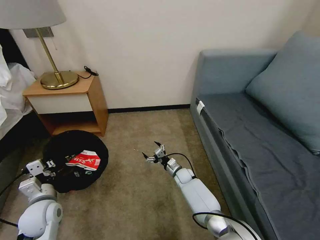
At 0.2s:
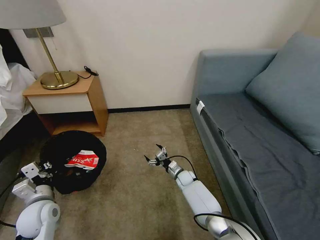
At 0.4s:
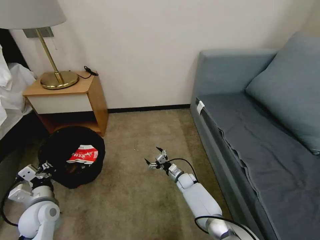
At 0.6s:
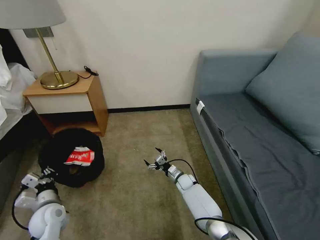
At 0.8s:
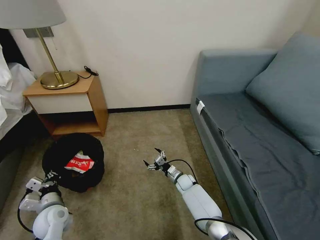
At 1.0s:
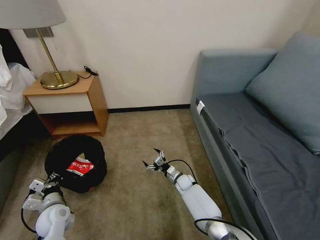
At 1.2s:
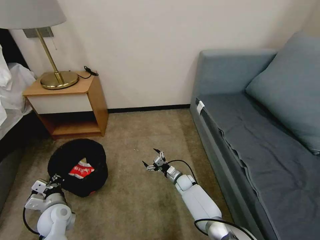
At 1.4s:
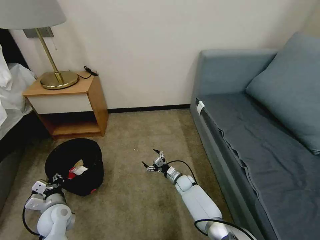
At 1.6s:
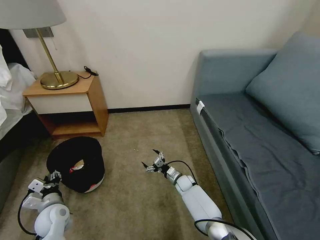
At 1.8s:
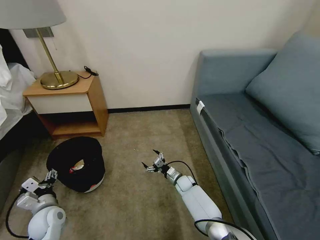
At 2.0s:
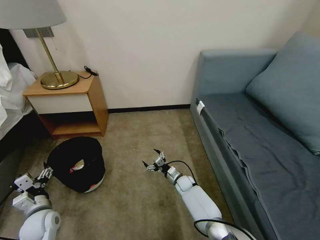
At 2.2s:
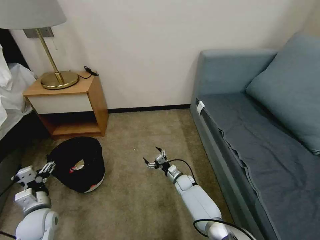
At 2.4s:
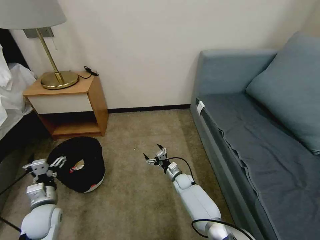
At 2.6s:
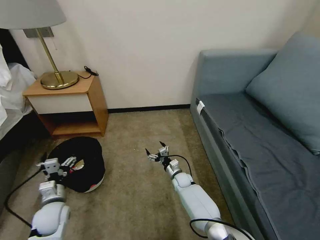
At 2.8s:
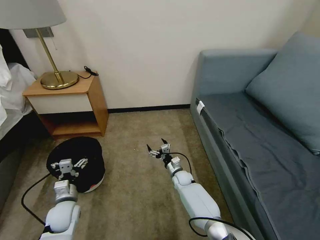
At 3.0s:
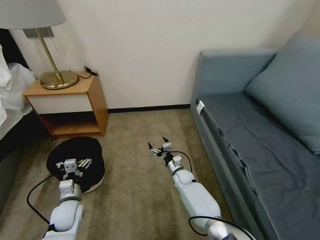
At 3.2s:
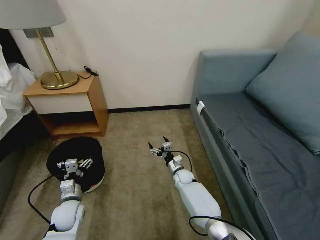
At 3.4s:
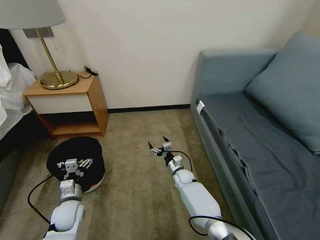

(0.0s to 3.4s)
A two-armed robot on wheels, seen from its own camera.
Task of the whole recording: Pick up the trash bin, then pick up the garbage on the floor and place it into the trash bin.
0.0s - 1.6s: The left gripper is displaced downward by some 10 cm, and opens its fingers.
1.6s - 3.4s: The left gripper changes place by about 5 cm, and opens its fingers.

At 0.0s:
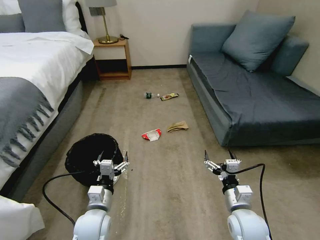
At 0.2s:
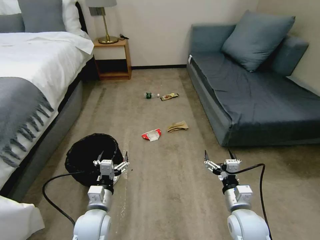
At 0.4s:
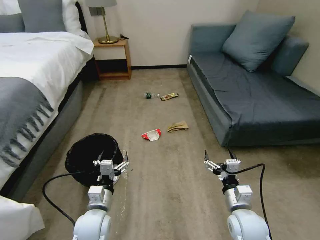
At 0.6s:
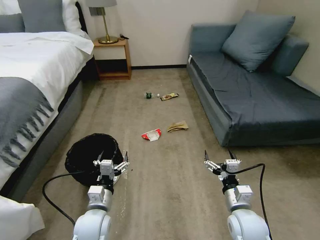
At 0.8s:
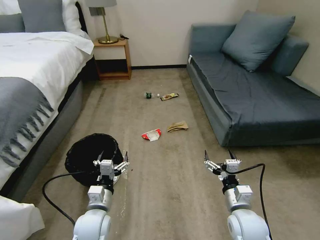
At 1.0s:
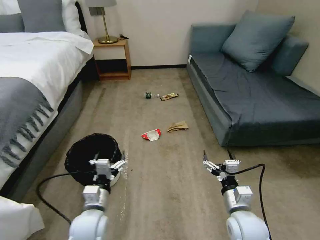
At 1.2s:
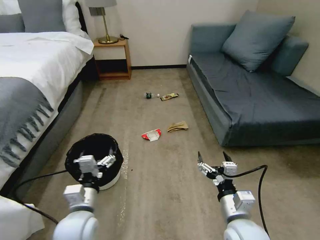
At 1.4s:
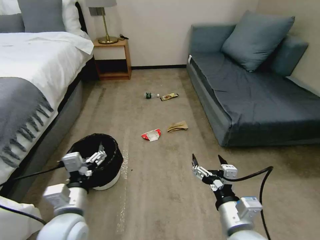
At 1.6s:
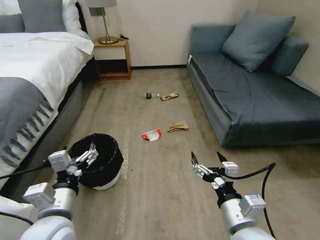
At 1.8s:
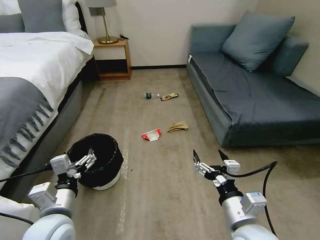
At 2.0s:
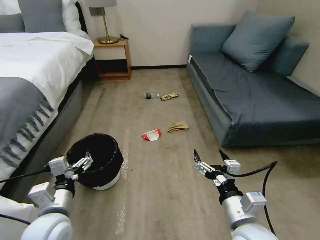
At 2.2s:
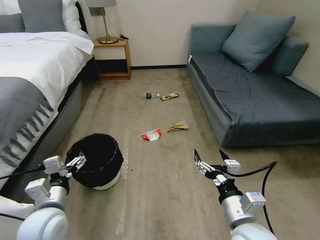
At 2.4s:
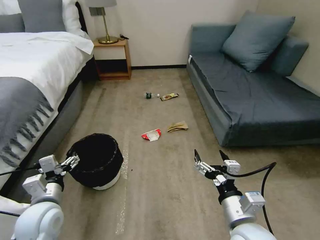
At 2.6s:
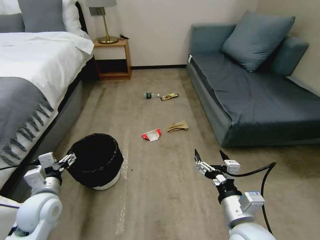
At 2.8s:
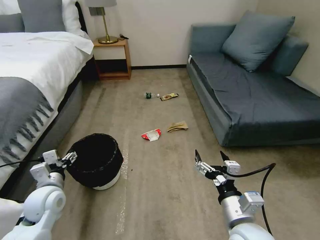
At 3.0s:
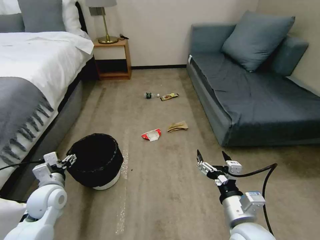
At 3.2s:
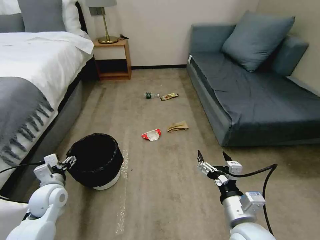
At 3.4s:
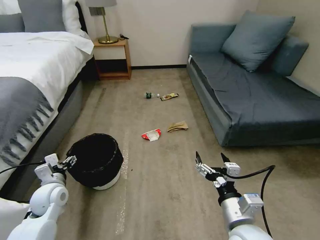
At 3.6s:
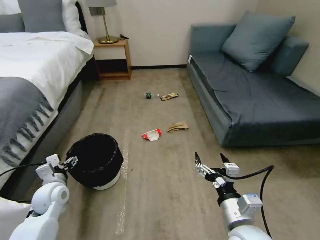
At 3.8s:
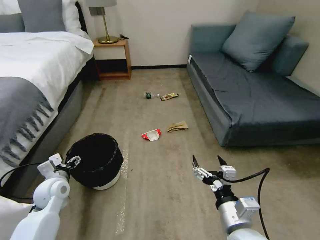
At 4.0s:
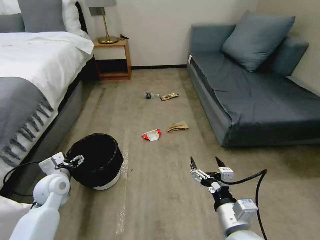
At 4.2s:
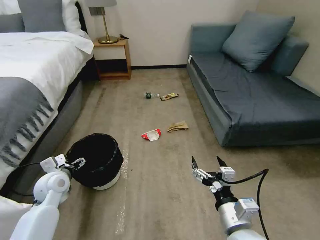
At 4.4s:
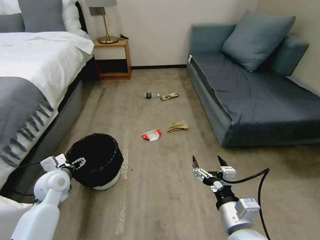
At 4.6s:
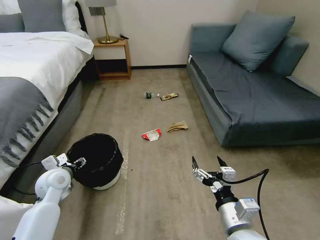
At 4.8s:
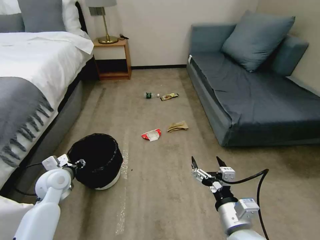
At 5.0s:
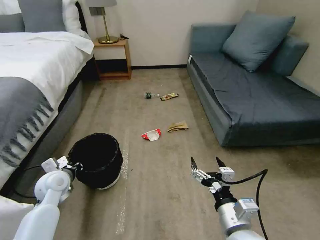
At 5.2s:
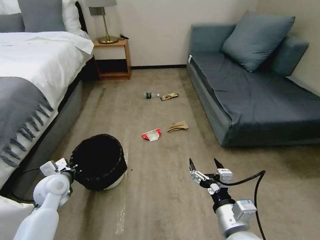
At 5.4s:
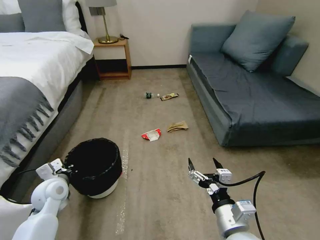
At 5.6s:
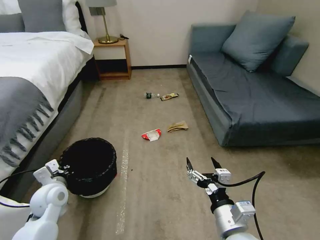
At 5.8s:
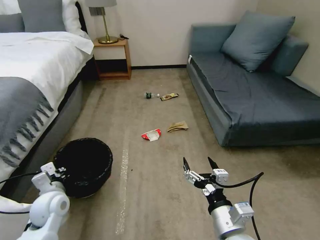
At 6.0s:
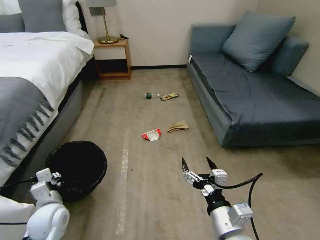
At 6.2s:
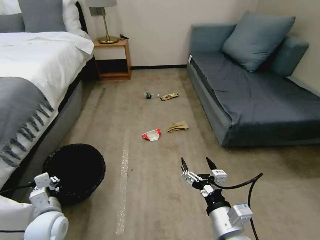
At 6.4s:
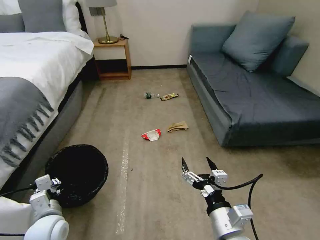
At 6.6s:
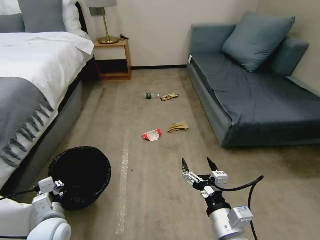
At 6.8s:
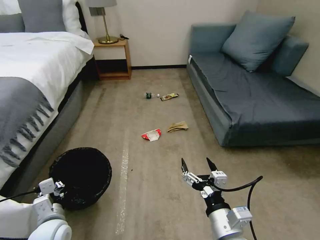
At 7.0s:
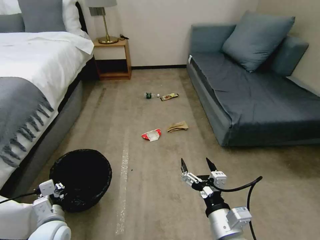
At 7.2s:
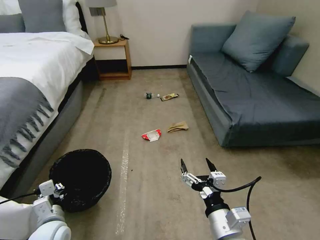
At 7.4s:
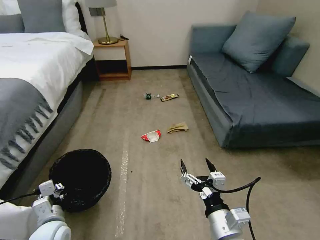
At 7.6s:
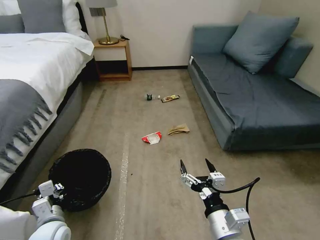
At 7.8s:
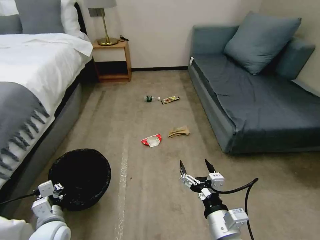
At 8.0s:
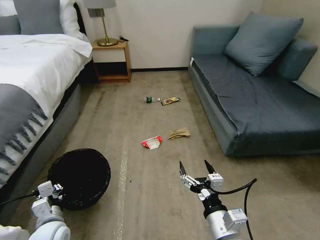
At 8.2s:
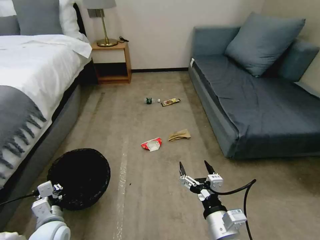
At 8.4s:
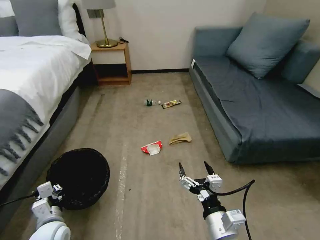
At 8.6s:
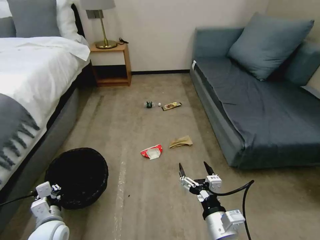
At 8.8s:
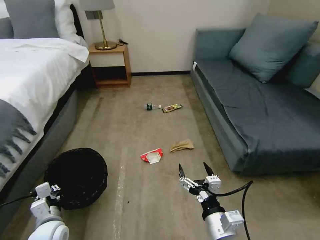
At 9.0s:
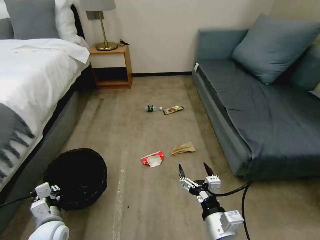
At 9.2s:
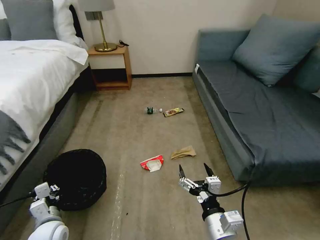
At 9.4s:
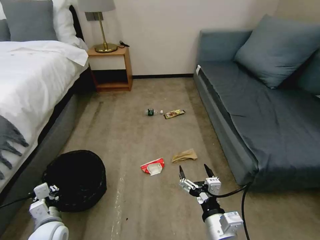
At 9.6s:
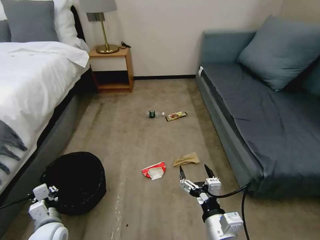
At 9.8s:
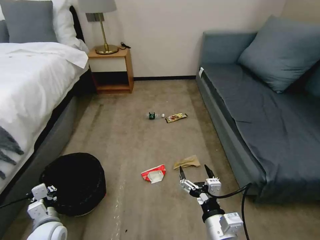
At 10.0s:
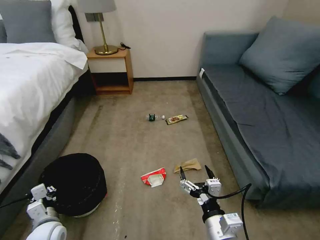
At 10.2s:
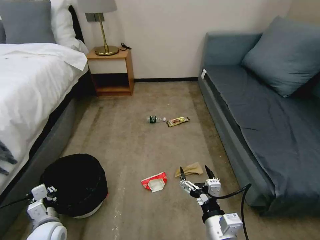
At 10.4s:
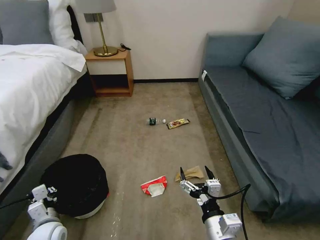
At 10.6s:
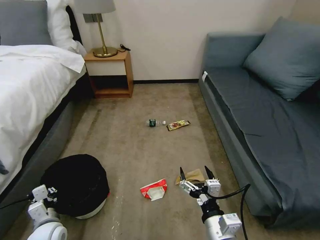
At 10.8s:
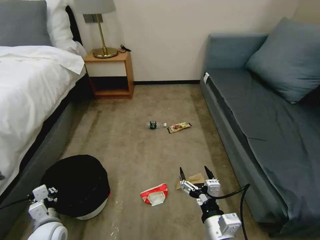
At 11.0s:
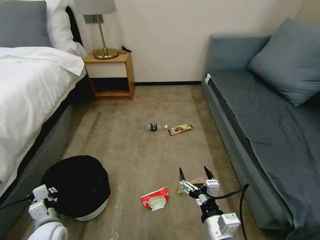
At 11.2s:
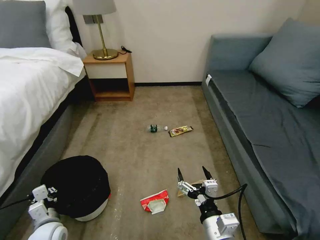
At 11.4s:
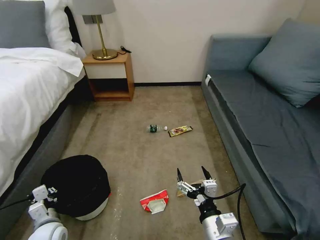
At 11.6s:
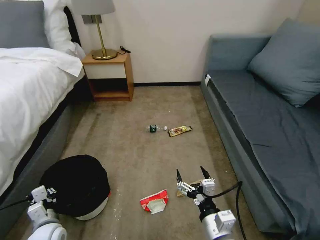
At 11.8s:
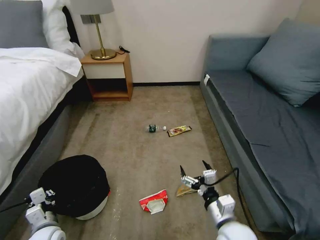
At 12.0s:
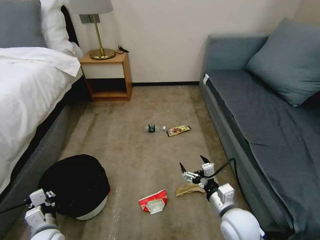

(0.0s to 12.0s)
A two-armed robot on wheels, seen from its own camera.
Task of the whole recording: Pick up the trash bin, then pick up the garbage on the floor and place it into the trash bin.
1.6s - 3.0s: The left gripper moves to the left, forward and downward, some 20 cm.
4.4s - 6.0s: The left gripper goes about 10 cm backward, and closes.
6.0s - 7.6s: The left gripper moves about 5 cm.
10.4s - 12.0s: The right gripper moves forward and to the right, roughly 10 cm.

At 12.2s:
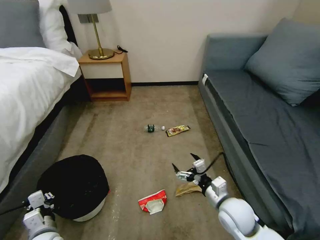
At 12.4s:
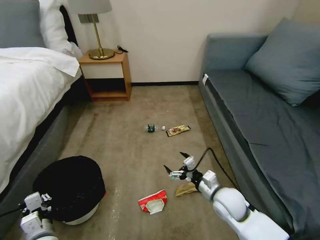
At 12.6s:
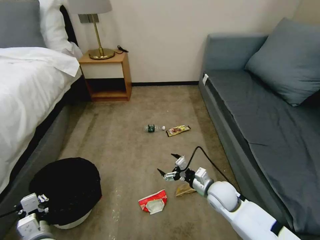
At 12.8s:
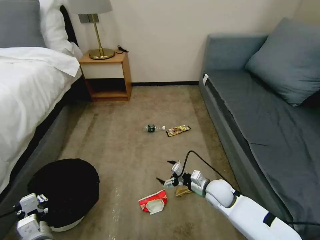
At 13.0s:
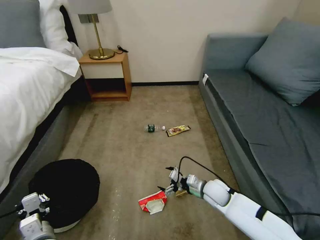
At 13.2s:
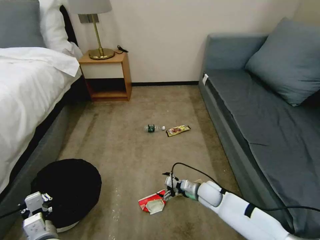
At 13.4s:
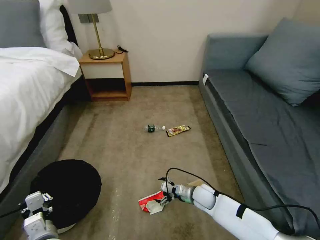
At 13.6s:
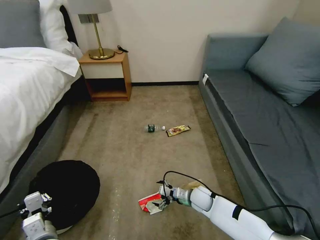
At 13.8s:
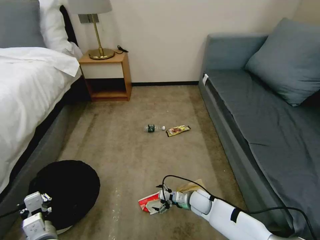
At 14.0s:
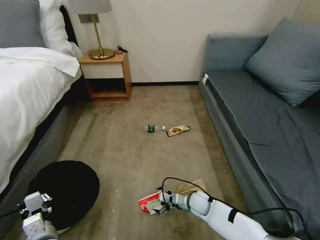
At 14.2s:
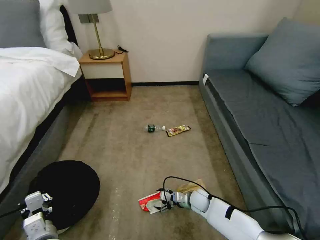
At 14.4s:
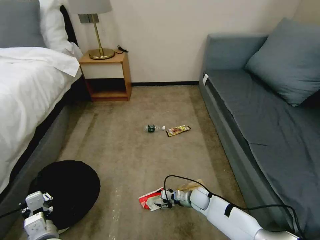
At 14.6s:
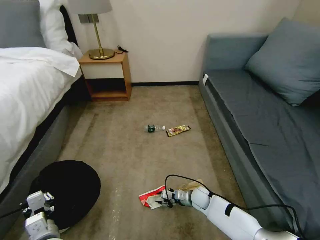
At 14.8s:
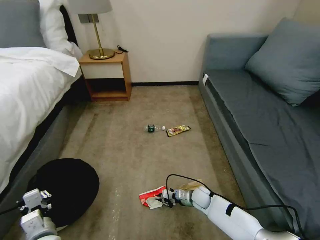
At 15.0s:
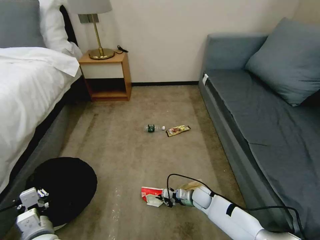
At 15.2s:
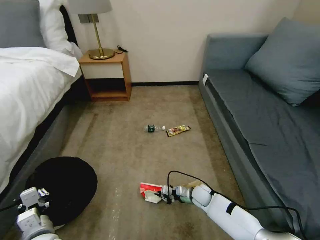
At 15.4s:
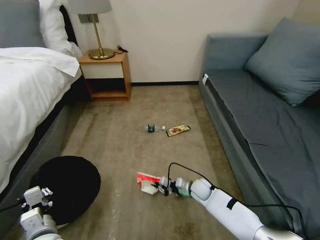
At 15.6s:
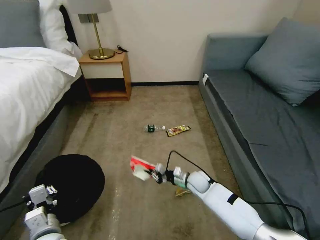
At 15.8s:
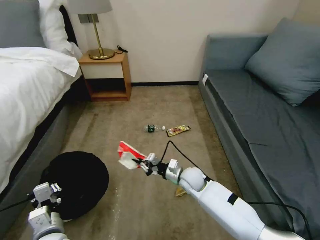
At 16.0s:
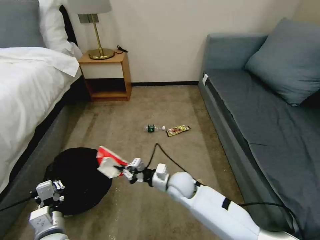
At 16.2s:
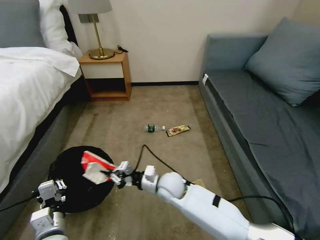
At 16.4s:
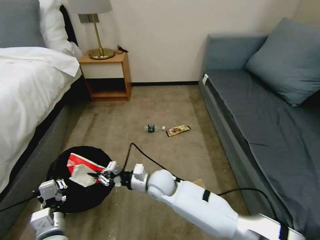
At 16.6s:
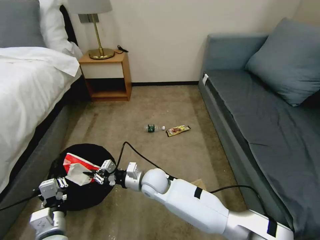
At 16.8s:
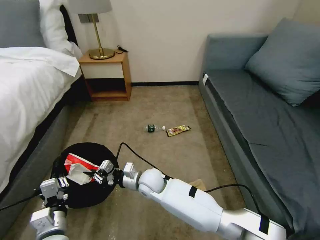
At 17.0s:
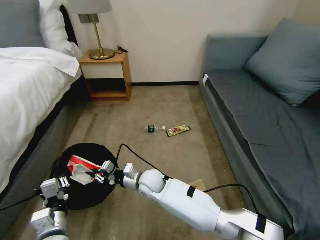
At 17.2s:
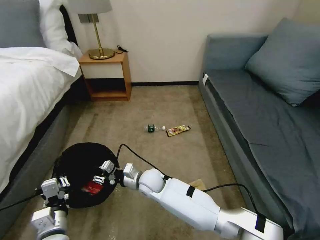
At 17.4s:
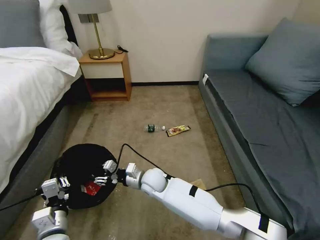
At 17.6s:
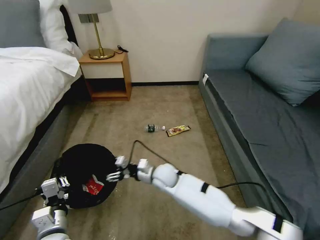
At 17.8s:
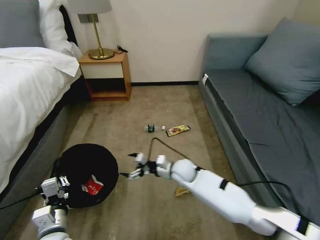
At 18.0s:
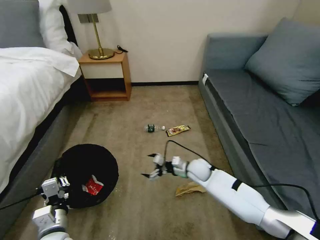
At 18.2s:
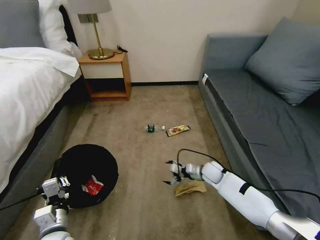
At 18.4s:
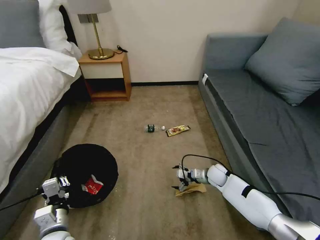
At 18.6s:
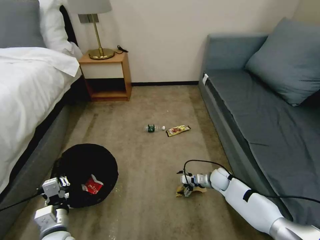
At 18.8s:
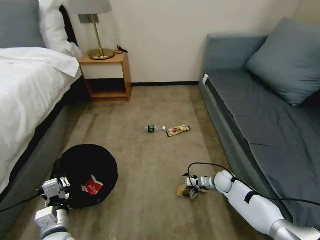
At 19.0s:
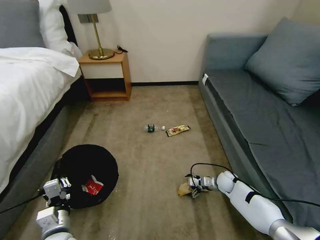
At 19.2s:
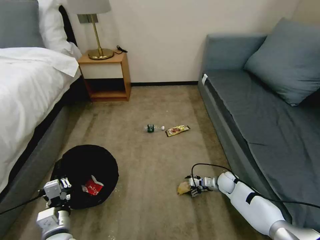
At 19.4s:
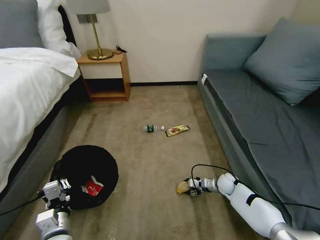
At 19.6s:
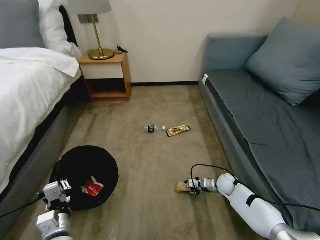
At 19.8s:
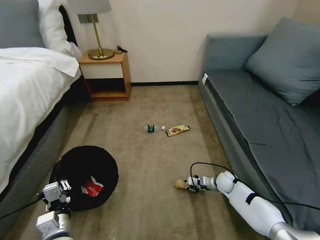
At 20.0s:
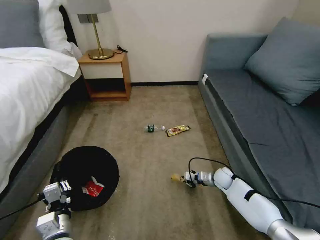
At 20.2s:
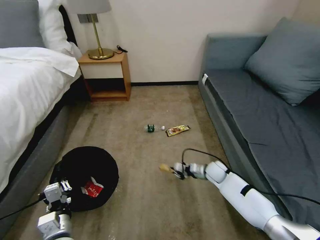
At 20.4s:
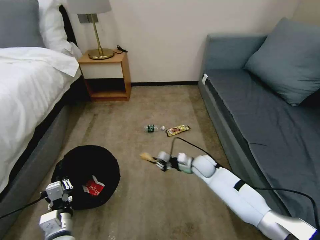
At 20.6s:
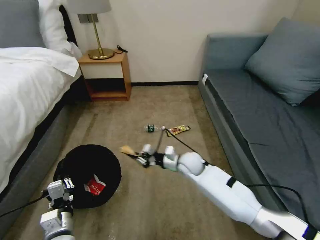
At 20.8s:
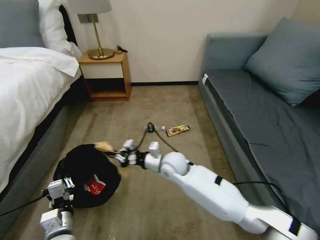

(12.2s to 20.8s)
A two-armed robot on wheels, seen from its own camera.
Task of the whole recording: Pick up the trash bin, then pick up the garbage on the floor and place it into the trash bin.
12.2s - 13.6s: The right gripper moves downward and forward, roughly 20 cm. Meanwhile the left gripper changes place by some 5 cm.
13.6s - 15.0s: The right gripper ends up roughly 5 cm from where it was, and closes its fingers.
15.0s - 16.6s: The right gripper shifts about 30 cm to the left and upward.
16.6s - 18.0s: The right gripper travels to the right by some 20 cm, and opens up.
18.0s - 19.4s: The right gripper goes about 20 cm to the right and downward, and closes its fingers.
19.4s - 20.8s: The right gripper travels to the left and upward by about 35 cm, and closes its fingers.
